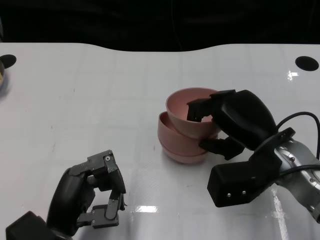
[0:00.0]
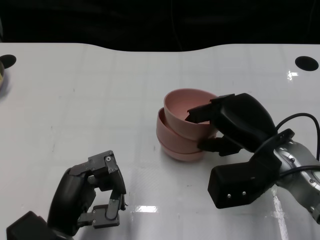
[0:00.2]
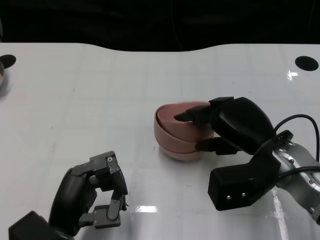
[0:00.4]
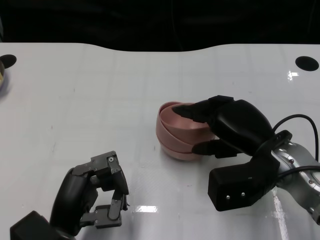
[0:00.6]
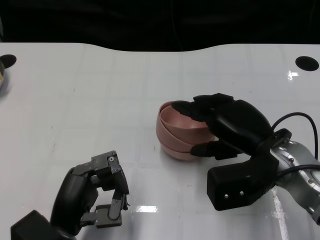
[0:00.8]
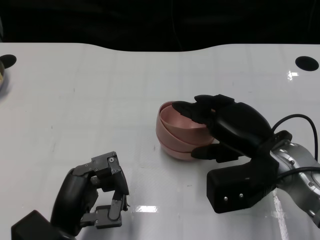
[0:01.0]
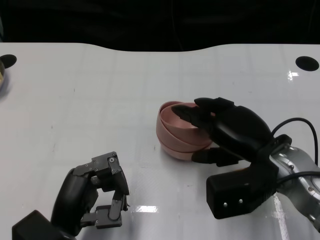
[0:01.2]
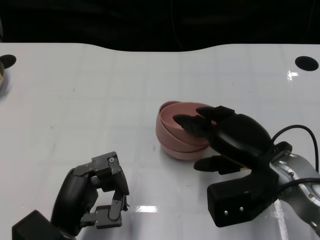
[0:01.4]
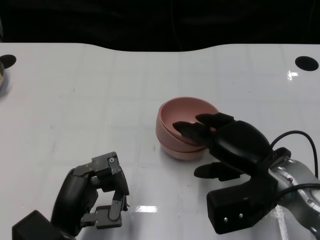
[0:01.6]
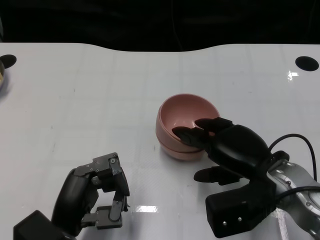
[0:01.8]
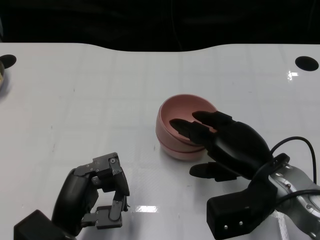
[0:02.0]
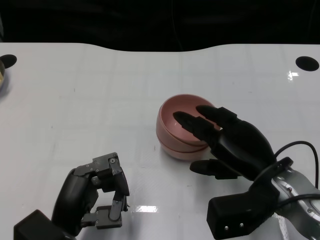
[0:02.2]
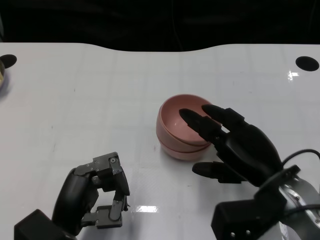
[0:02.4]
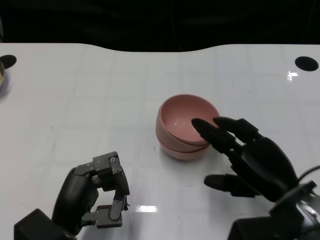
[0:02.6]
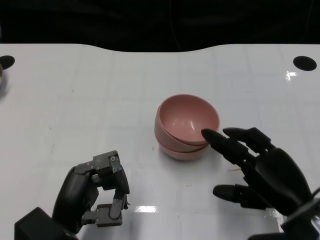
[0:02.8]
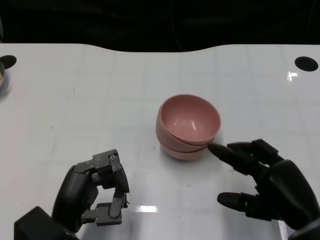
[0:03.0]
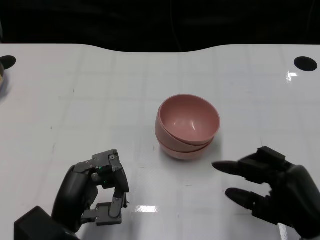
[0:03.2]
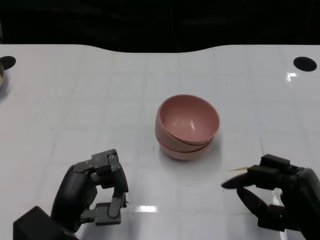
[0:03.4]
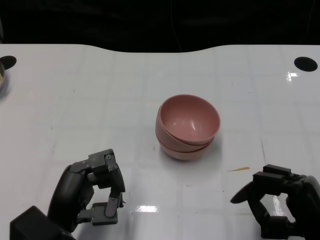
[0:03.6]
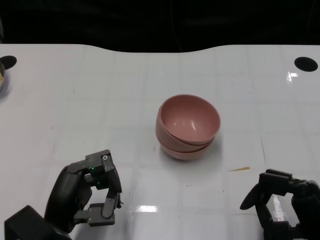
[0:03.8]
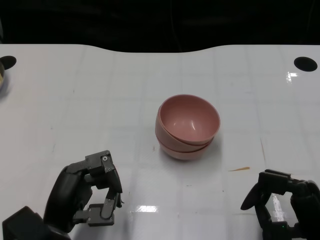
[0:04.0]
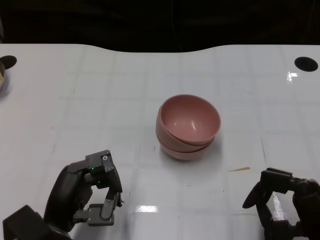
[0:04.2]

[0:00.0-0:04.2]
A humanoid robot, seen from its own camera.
Task of the whole recording: Pick up the bowl on one side of the table and place it on top of the middle bowl, then pick up the bowl on the other side of the table and place it on top of the middle bowls.
Step, 0.0 to 2.4 s: Place the bowl on the right onto the bowl in the middle with right gripper.
0.0 to 1.4 s: The hands stay close to where they were, moving slightly.
1.4 to 2.8 s: The right hand heads backward, covering roughly 5 cm.
2.8 to 4.2 s: The right hand shifts by roughly 5 cm.

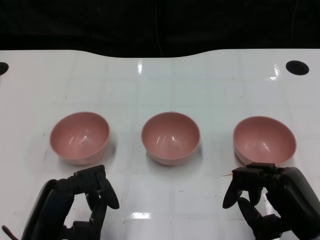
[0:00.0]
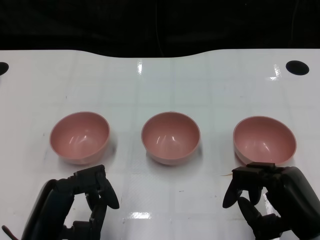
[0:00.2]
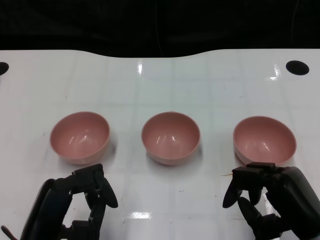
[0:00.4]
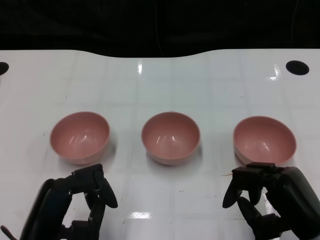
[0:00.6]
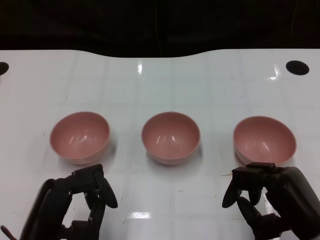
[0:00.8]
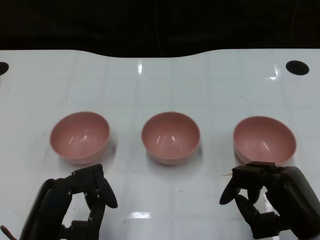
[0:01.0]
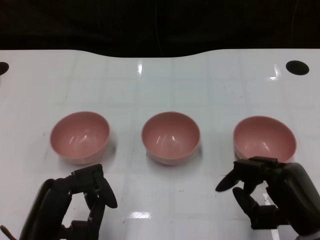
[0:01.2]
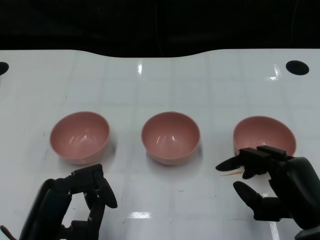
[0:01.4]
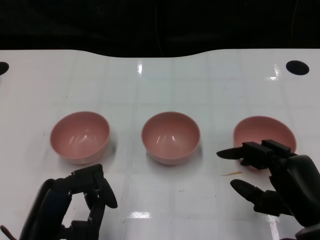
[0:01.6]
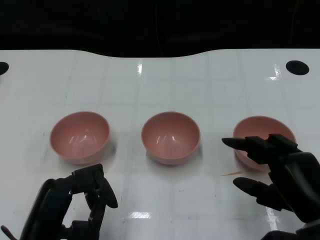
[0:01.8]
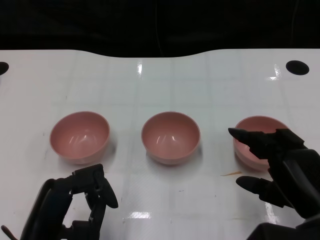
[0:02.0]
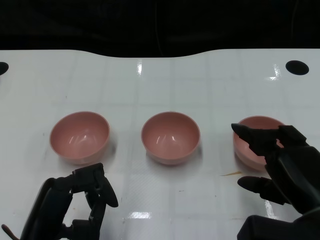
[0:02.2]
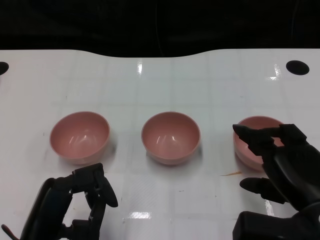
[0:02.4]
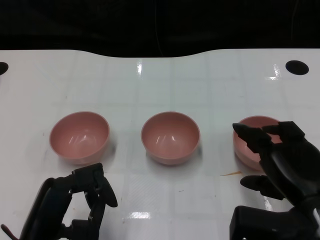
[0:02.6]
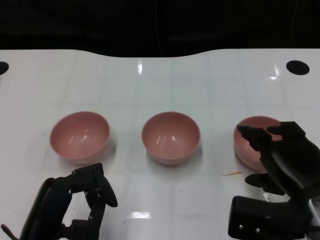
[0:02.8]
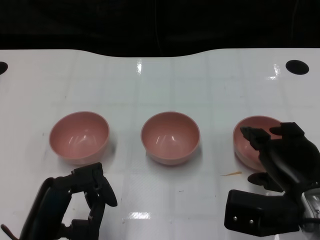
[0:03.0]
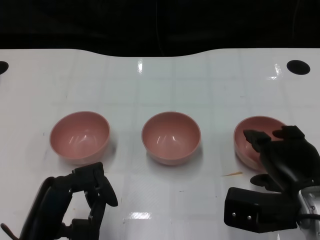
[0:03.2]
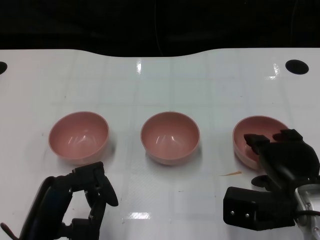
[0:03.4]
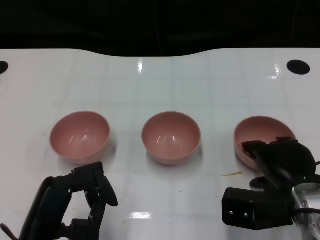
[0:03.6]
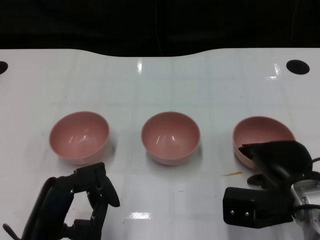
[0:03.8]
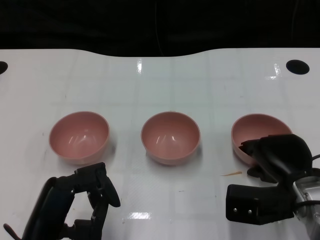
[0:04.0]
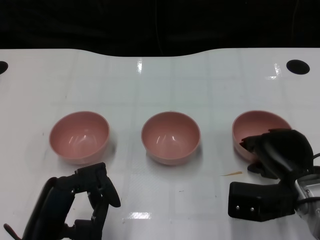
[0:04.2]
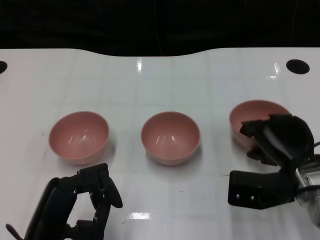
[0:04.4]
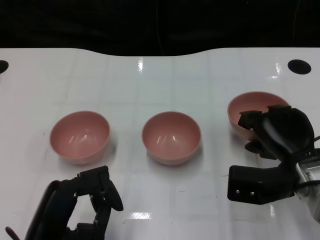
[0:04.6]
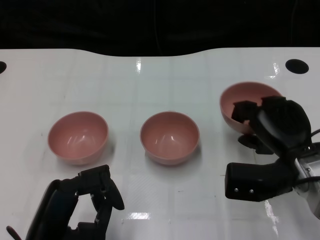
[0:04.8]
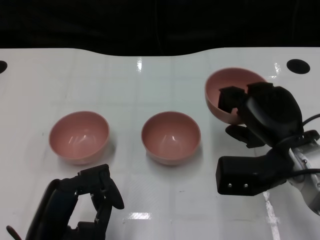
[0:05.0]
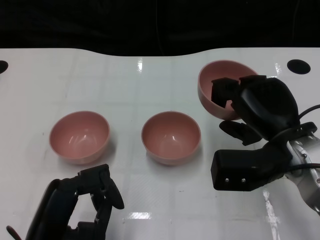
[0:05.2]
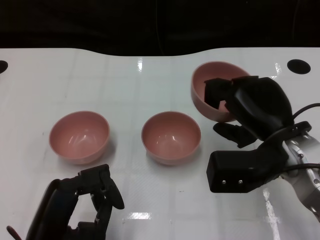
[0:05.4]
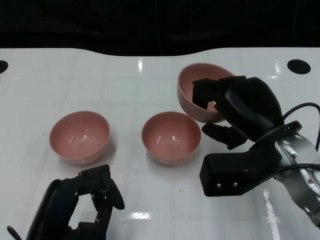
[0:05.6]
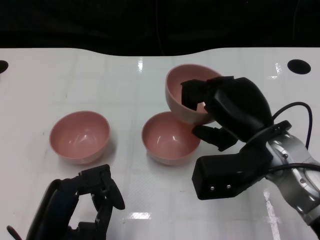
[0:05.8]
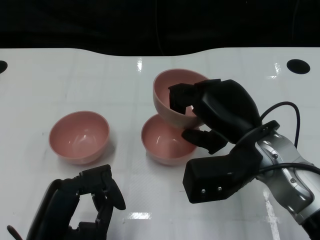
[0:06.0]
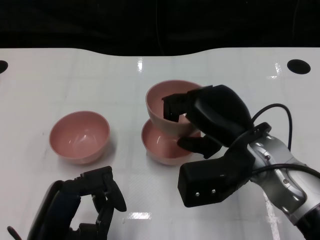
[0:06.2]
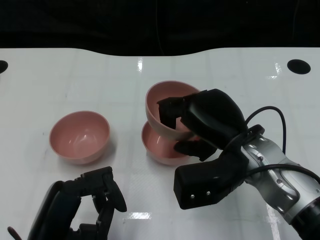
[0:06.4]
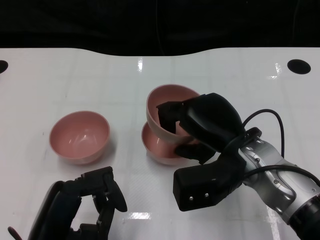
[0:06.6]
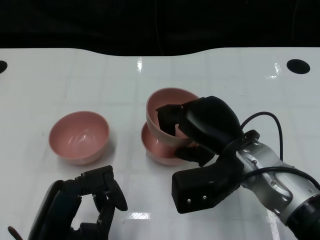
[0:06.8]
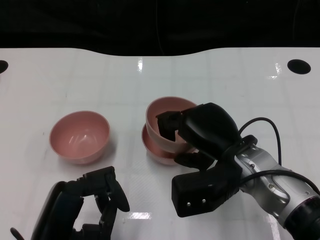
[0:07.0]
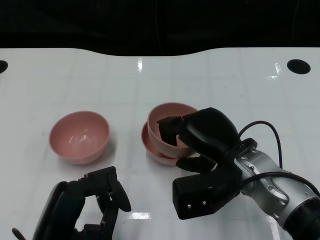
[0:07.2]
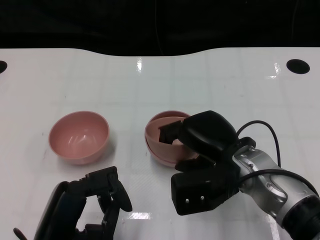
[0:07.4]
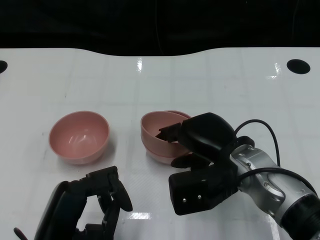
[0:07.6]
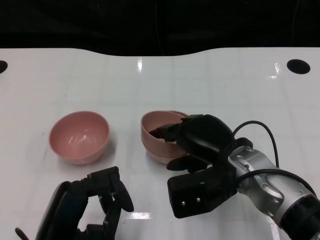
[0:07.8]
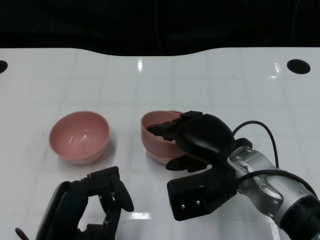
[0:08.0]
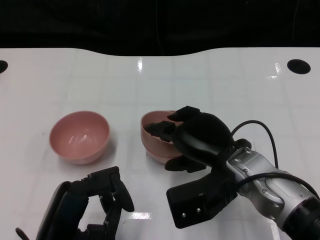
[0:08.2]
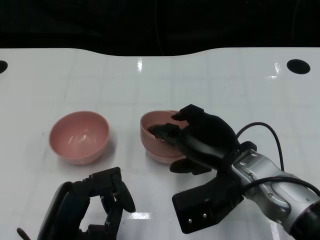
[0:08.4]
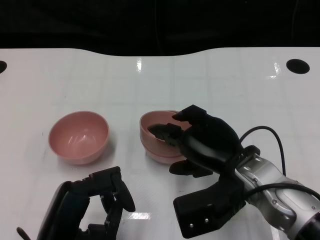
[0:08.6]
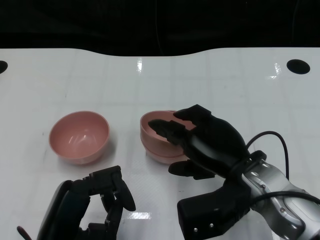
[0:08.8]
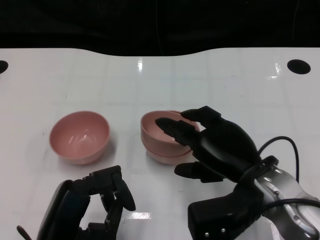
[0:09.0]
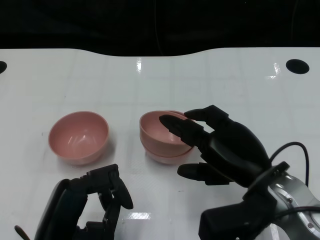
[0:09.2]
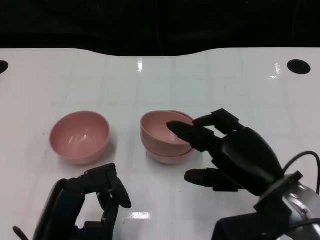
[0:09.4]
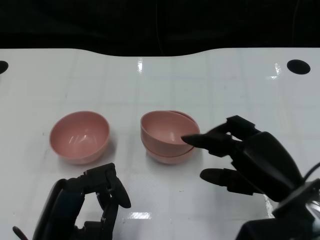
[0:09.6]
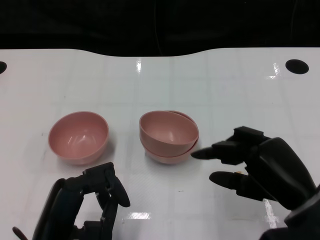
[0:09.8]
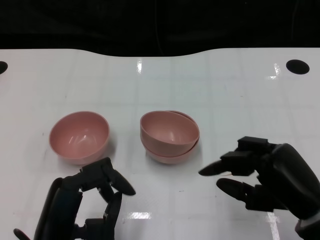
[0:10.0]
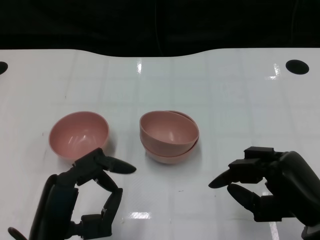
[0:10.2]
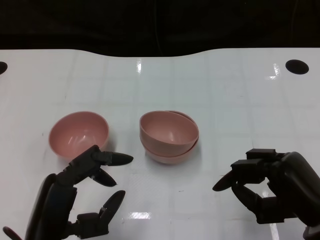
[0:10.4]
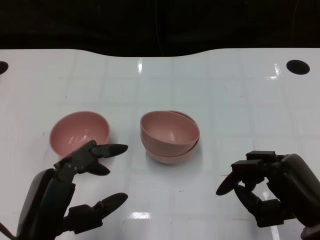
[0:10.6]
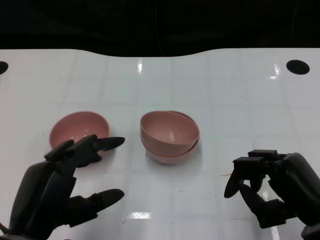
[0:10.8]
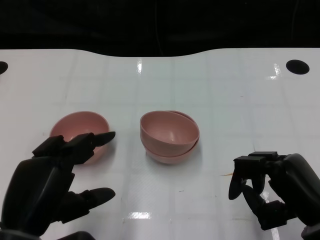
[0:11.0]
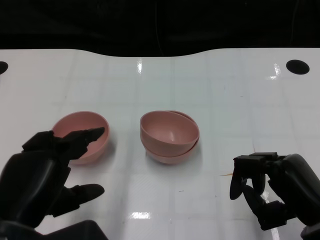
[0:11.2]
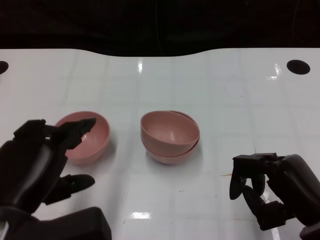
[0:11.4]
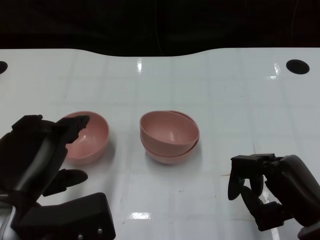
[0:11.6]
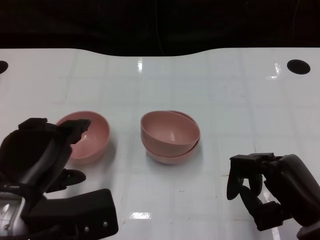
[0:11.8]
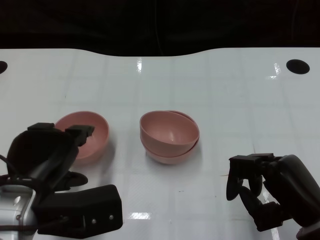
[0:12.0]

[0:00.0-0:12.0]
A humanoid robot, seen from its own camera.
Task of the whole recording: Pick up the bowl on one side of the table and place it on top of the middle bowl, then pick up the bowl on the other side of the table and place it on top of the middle bowls.
Step, 1.2 to 4.4 s: Grasp the bowl on the right with the right gripper.
Step, 4.6 to 9.2 s: Place the bowl on the right onto the bowl in the middle with right gripper.
3.0 to 4.4 s: The right hand travels forward by some 5 cm.
4.4 to 6.0 s: The right hand heads upward and to the left, covering some 10 cm.
7.6 to 9.0 s: The hands move only a little.
9.0 to 10.4 s: The right hand heads to the right and backward, covering about 10 cm.
10.4 to 12.0 s: The left hand heads forward, covering approximately 5 cm.

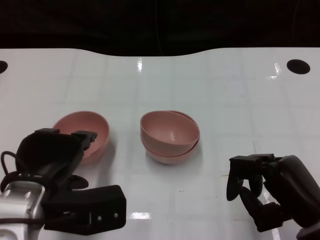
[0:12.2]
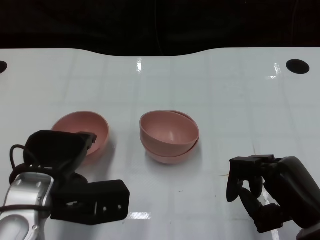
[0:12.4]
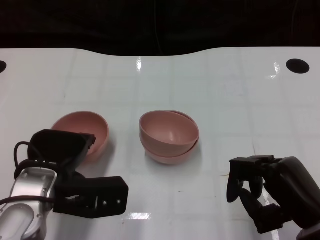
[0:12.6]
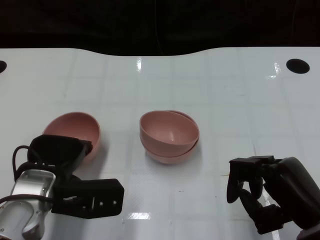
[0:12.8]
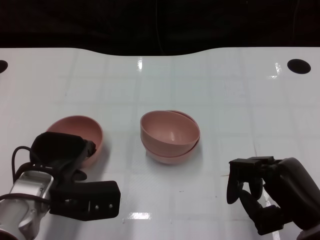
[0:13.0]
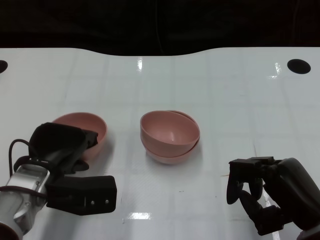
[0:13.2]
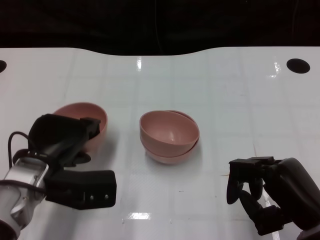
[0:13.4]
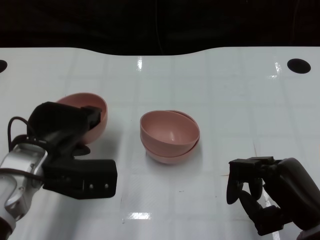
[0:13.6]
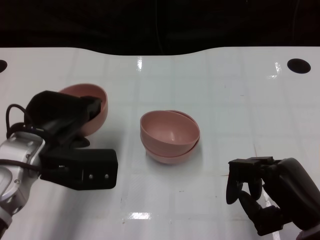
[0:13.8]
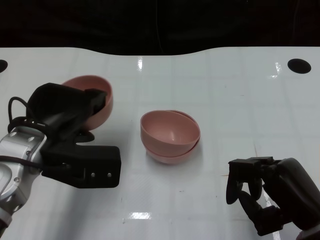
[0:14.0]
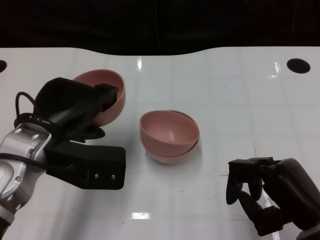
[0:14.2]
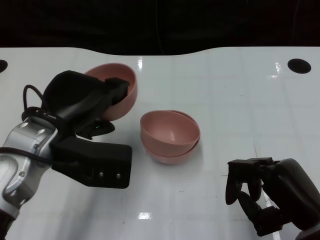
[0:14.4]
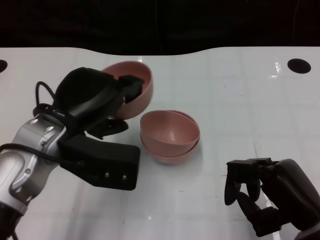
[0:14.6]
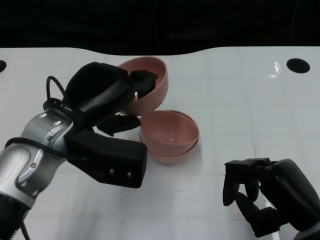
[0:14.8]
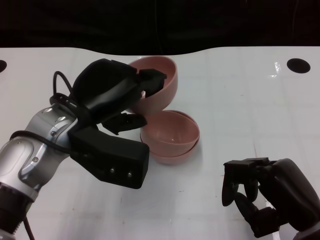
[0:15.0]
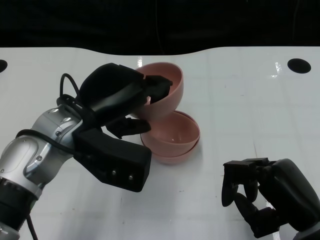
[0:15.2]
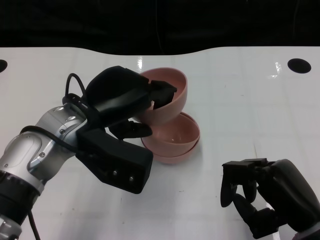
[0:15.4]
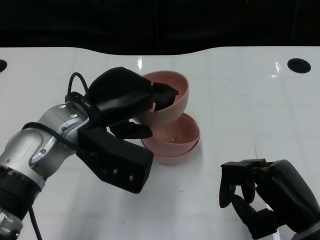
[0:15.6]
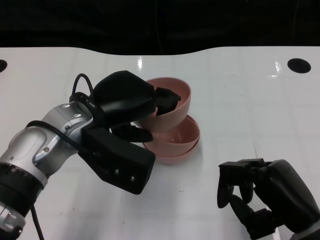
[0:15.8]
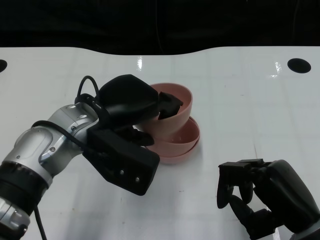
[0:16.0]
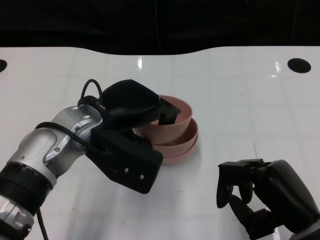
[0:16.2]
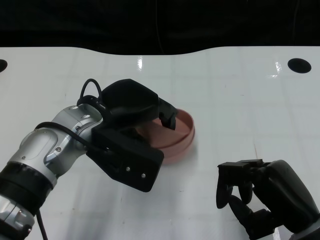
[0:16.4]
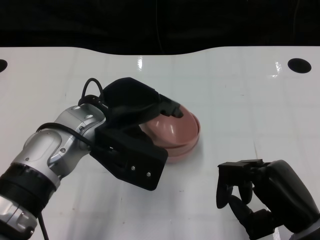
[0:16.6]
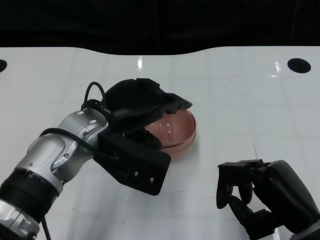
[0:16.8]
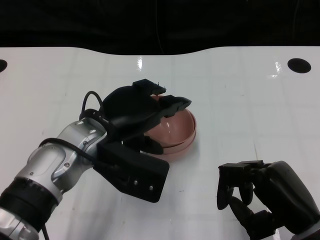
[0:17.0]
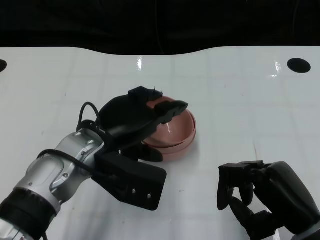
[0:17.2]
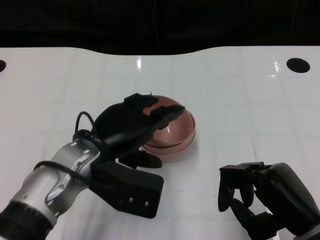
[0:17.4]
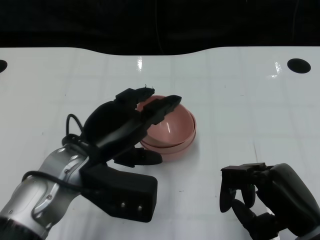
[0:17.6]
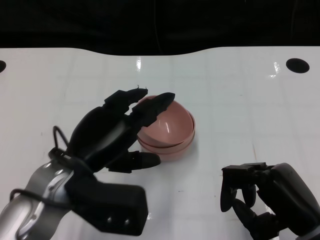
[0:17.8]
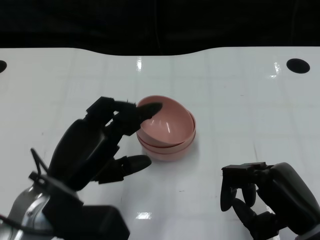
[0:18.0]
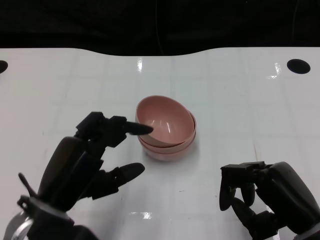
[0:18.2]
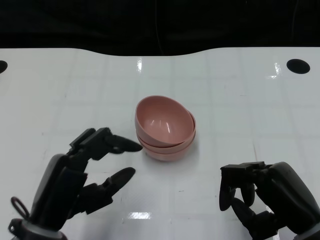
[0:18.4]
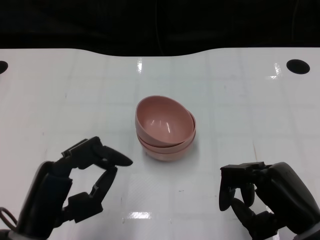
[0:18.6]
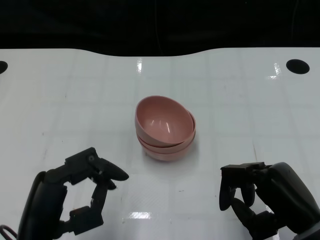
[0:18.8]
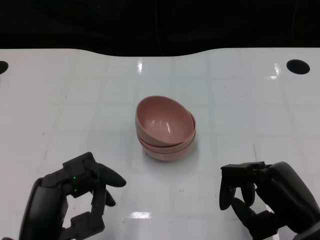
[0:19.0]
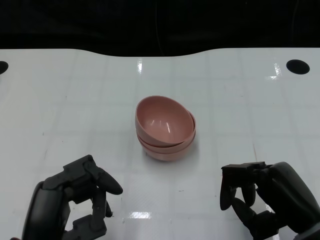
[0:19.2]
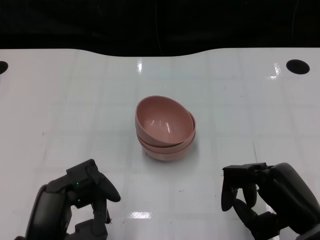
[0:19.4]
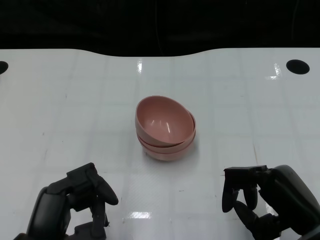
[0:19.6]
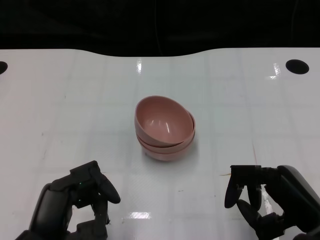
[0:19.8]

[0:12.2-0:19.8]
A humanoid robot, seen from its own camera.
Task of the whole recording: Pick up the bowl on one side of the table and place it on top of the middle bowl, then pick up the bowl on the other side of the table and place it on top of the middle bowls.
Step, 13.4 to 18.2 s: Place the bowl on the left onto the bowl in the middle with left gripper.
12.2 to 13.8 s: The left hand travels forward by roughly 5 cm.
13.8 to 15.2 s: The left hand heads to the right, covering roughly 5 cm.
16.8 to 18.2 s: The left hand heads backward and to the left, covering approximately 10 cm.
18.2 to 19.8 s: The left hand travels backward by roughly 5 cm.
